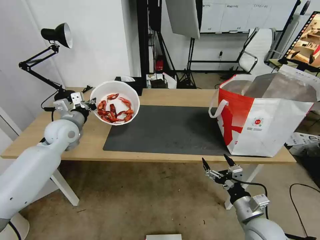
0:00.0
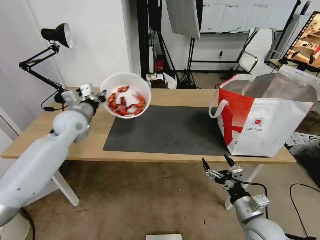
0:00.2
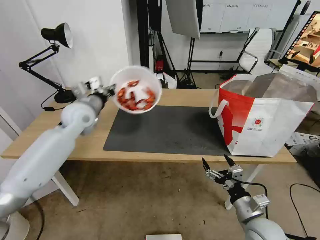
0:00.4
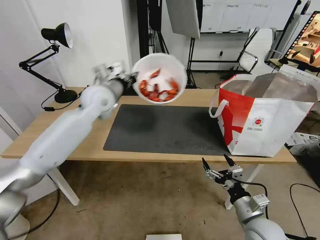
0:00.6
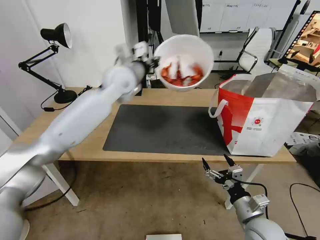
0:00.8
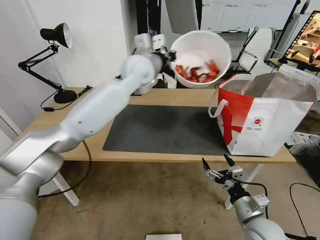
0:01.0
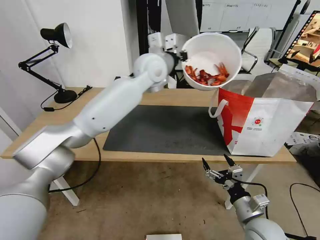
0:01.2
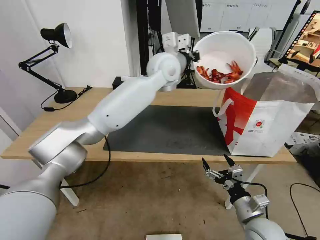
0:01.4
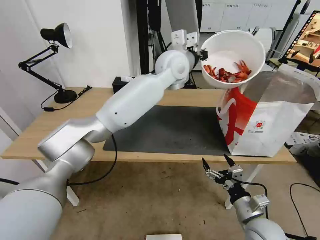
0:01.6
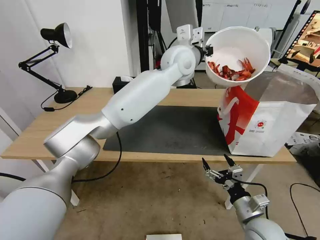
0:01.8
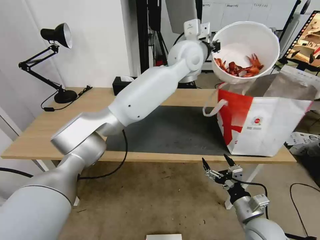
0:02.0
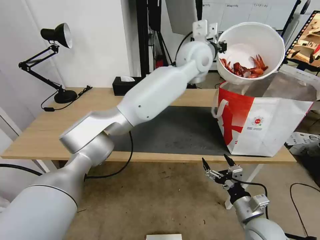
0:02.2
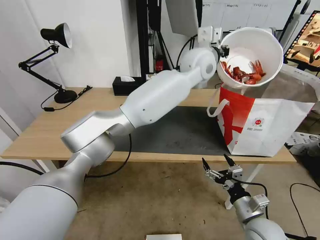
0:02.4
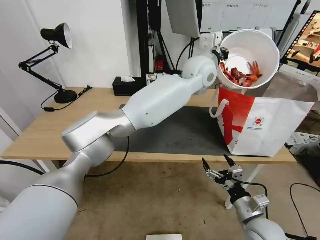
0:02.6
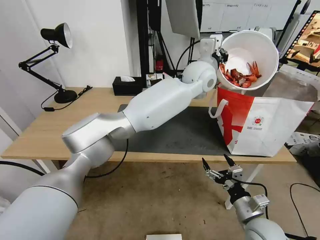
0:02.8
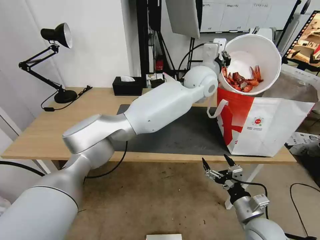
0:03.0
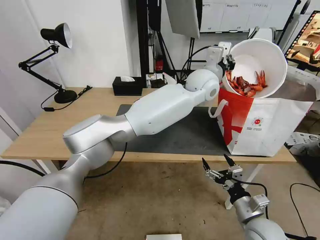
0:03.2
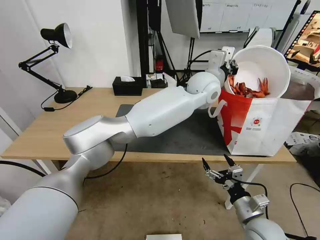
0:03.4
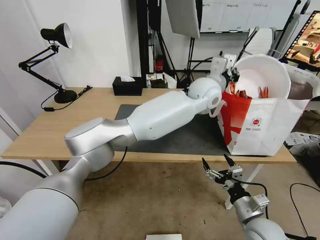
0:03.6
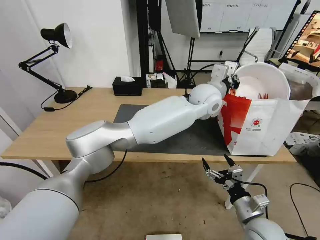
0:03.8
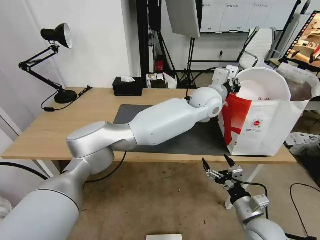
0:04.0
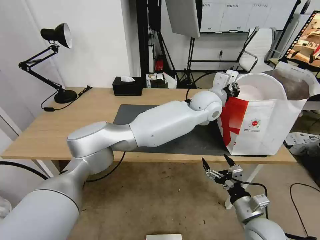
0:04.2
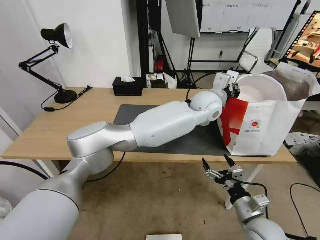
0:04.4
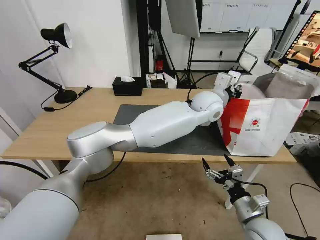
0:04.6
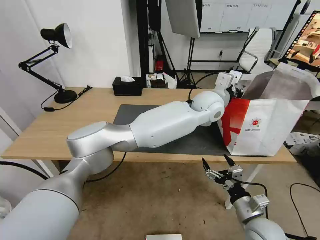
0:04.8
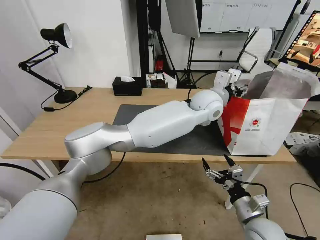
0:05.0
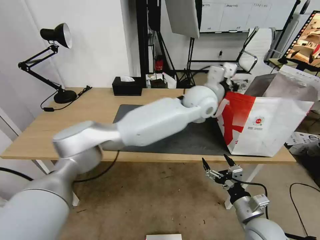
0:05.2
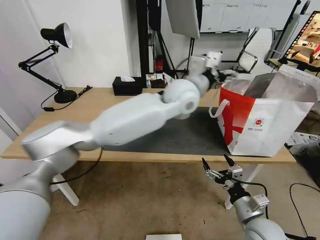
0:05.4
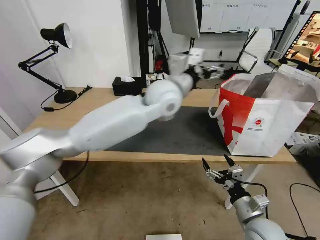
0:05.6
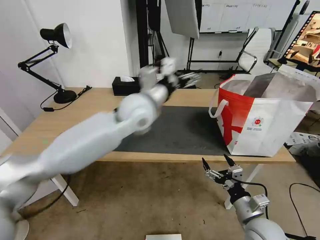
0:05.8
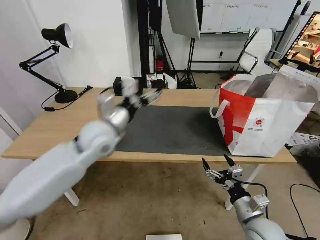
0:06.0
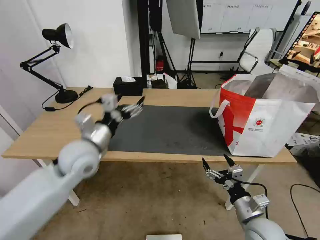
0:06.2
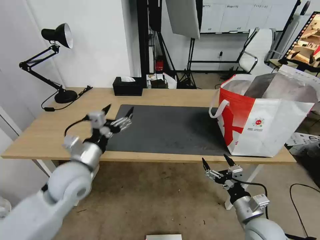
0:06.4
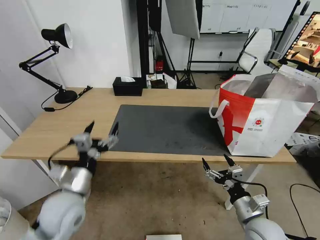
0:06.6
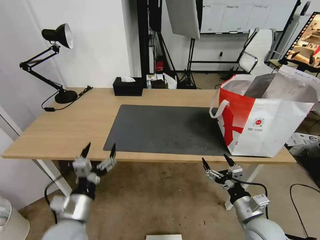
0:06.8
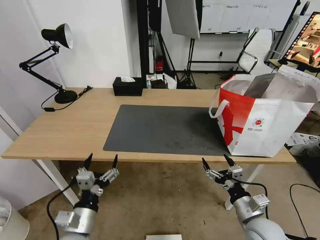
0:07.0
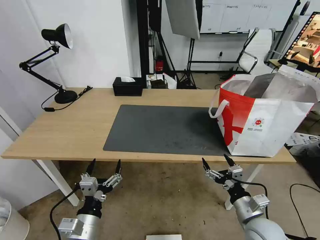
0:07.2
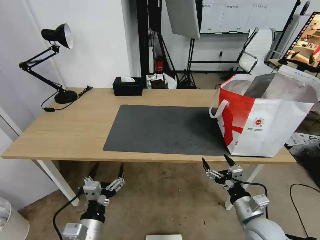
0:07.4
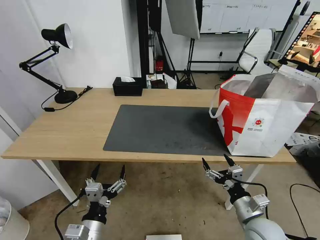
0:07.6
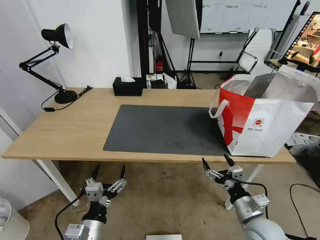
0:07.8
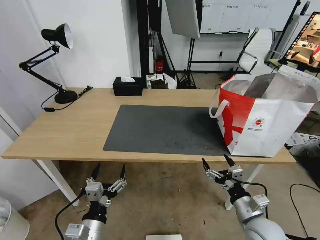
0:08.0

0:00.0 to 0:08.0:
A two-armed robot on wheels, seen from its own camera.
Task of the whole recording: Pick up the trash from the table and place it into the takeout bag.
0:00.0 to 0:01.6: The left gripper shifts roughly 40 cm to the right and upward.
0:01.6 to 0:03.2: The left gripper goes roughly 10 cm to the right.
0:03.2 to 0:04.8: The left gripper shifts some 5 cm downward, and opens up.
0:04.8 to 0:06.4: The left gripper travels to the left and backward by approximately 40 cm, and opens its fingers.
0:06.4 to 0:08.0: The left gripper heads backward and downward, covering roughly 20 cm.
